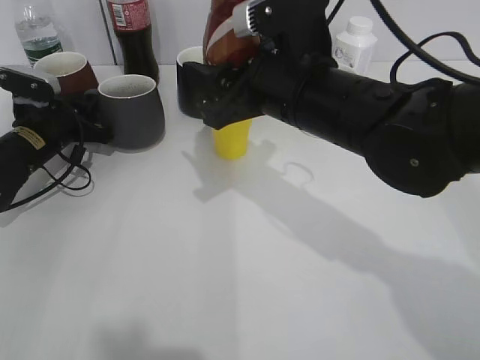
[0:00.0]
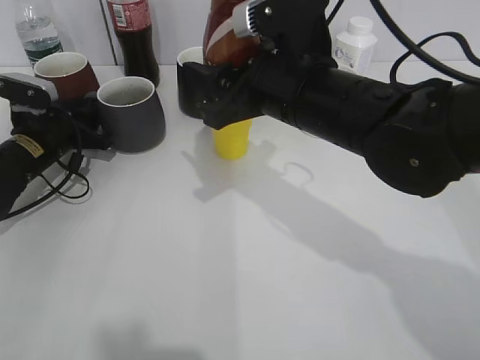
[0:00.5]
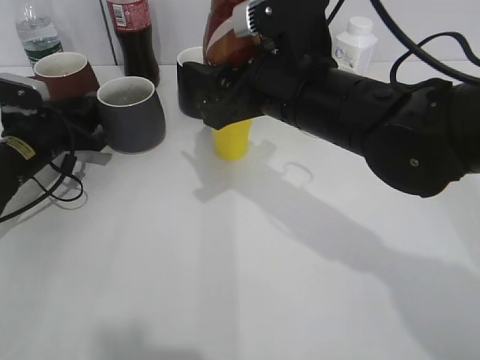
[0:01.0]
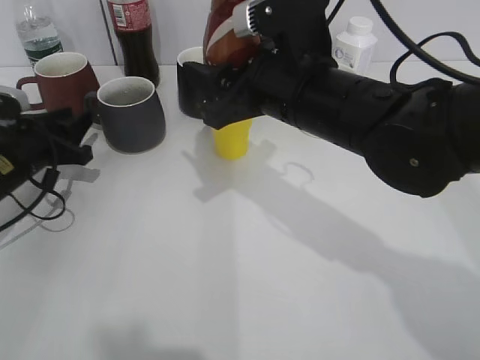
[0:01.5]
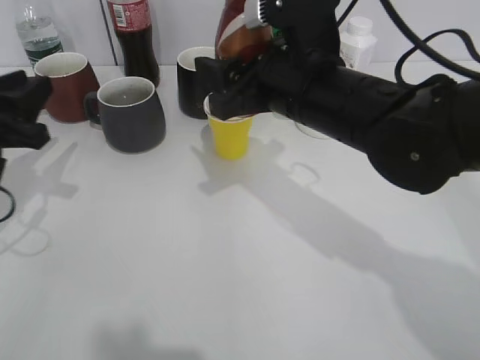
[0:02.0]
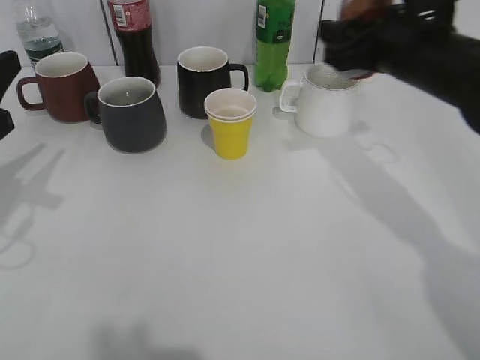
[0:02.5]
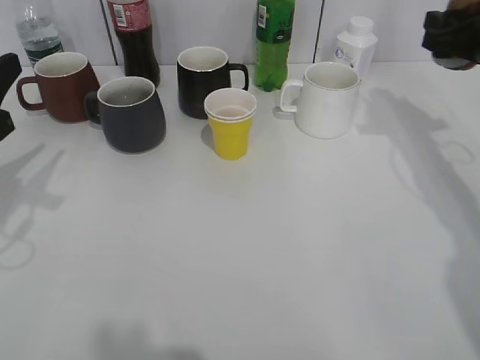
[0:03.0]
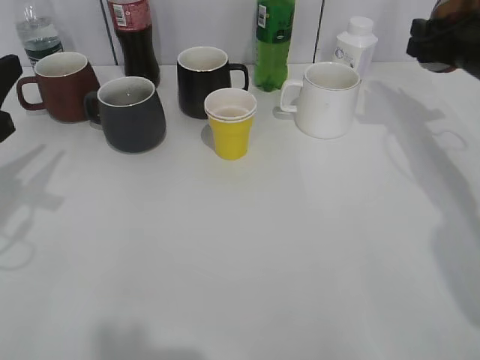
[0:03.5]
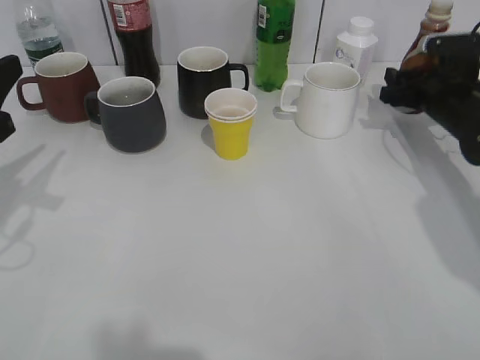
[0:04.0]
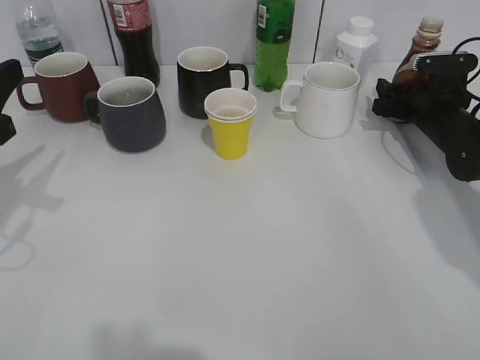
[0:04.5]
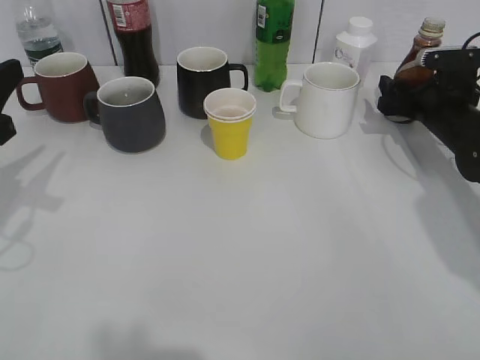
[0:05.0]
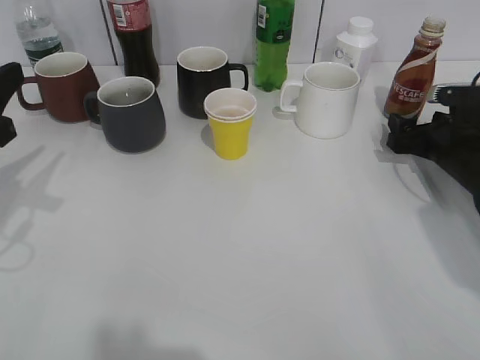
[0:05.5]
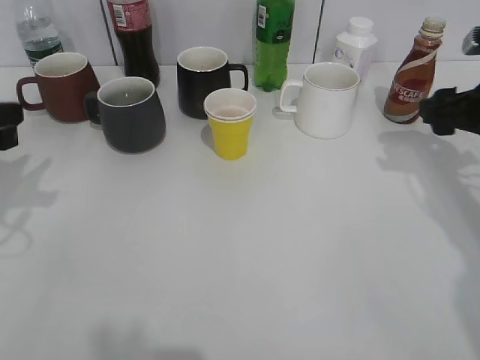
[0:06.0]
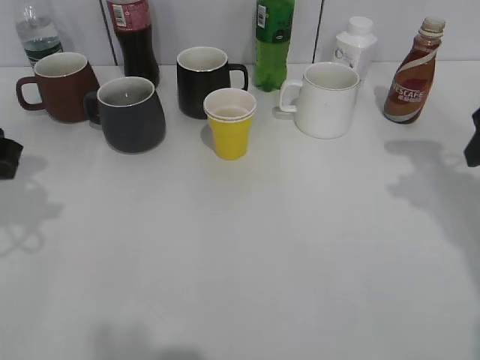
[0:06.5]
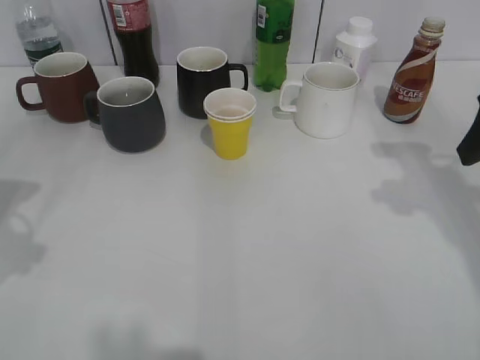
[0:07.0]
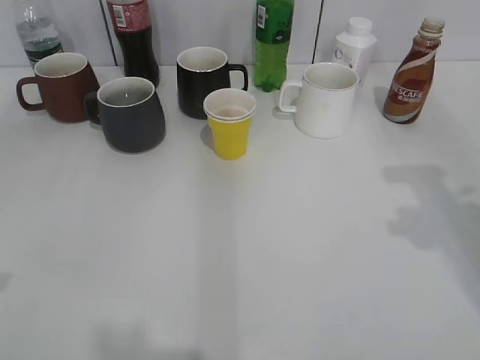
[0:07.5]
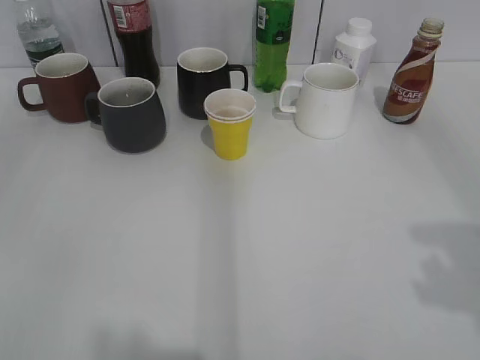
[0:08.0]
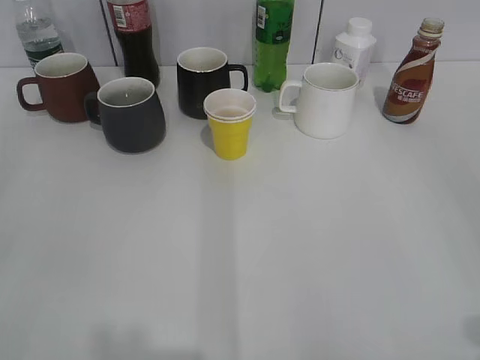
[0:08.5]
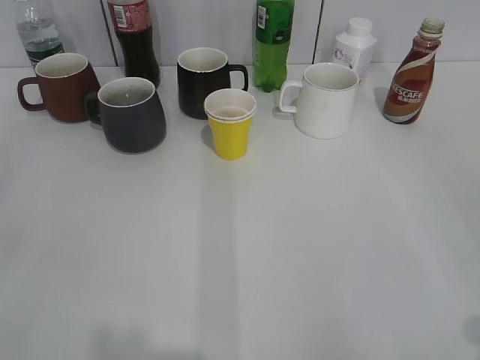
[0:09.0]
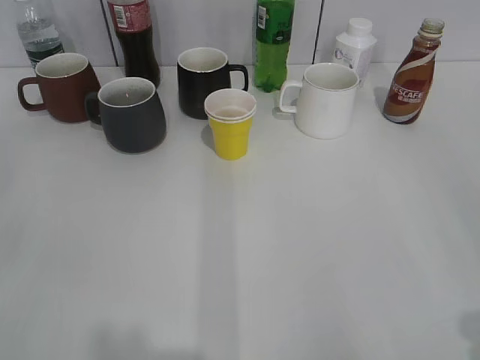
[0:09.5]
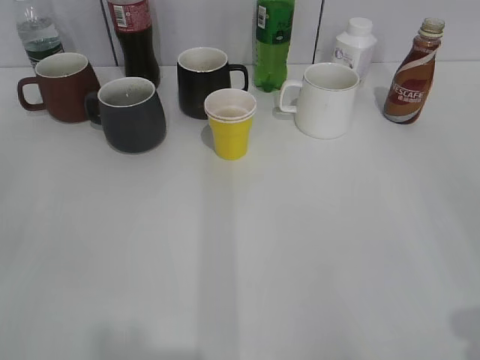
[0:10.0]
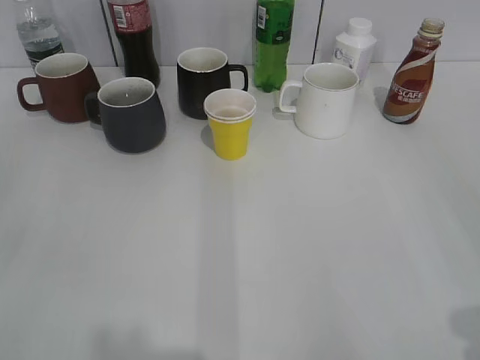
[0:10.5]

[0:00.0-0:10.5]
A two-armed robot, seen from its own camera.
Step, 0:02.0 to 0:05.5: Place the coffee bottle on the table with right gripper.
0:00.0 to 0:02.0: The left gripper is displaced backward and upward by about 15 cm, and opens up.
0:02.0 to 0:04.0: The left gripper moves roughly 5 cm. Meanwhile the right gripper travels to the right, forward and downward by some 30 cm.
0:04.0 to 0:06.5: The right gripper is displaced backward and upward by roughly 20 cm, and opens, then closes again.
0:06.5 to 0:08.5: Both grippers travel together backward, approximately 25 cm. The right gripper opens its fingers.

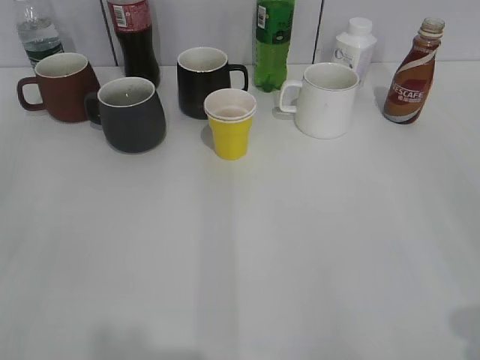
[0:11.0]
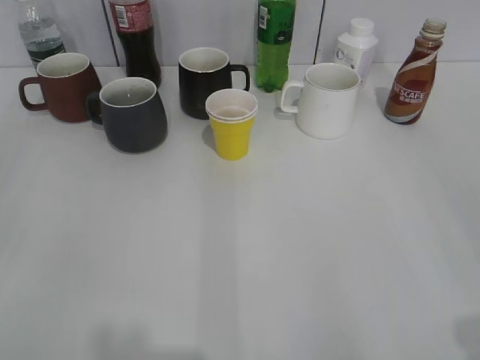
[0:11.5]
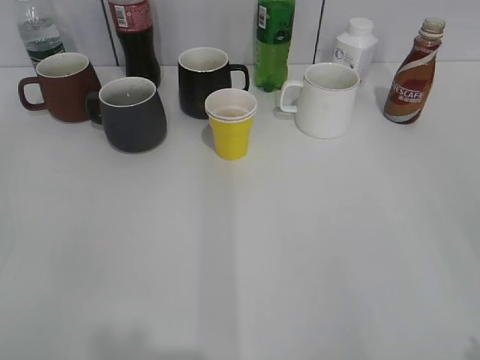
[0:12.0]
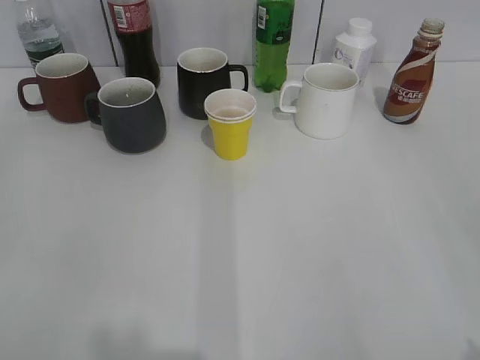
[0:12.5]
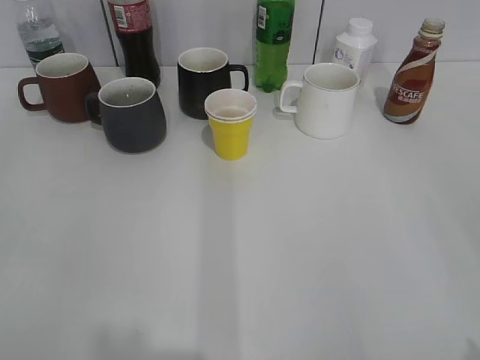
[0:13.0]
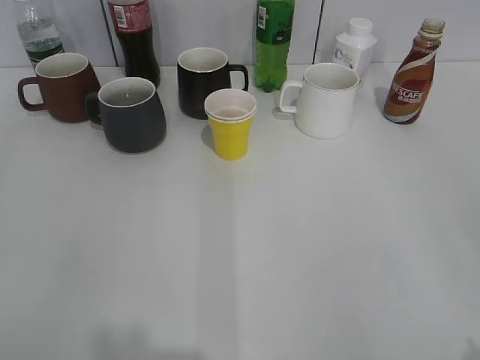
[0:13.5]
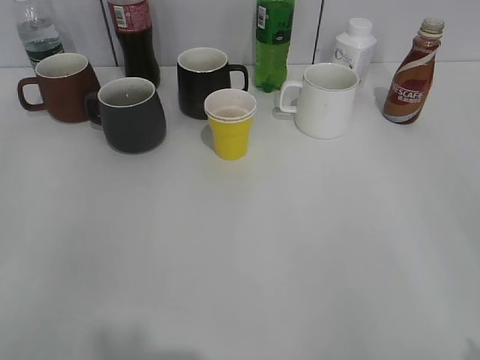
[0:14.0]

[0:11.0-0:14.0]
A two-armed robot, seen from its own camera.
0:12.5 to 0:14.0: Both grippers stay about where they are.

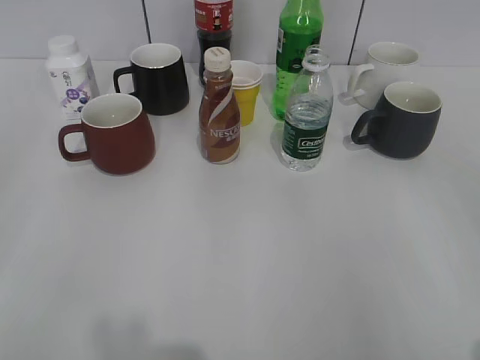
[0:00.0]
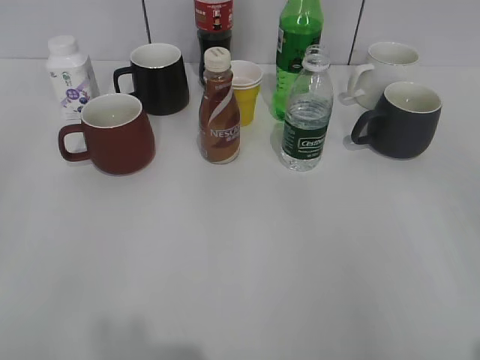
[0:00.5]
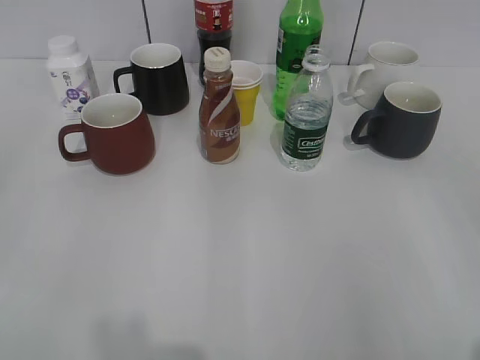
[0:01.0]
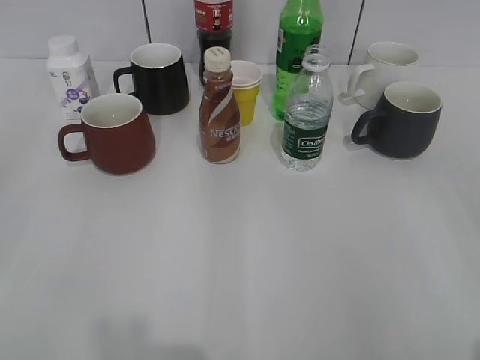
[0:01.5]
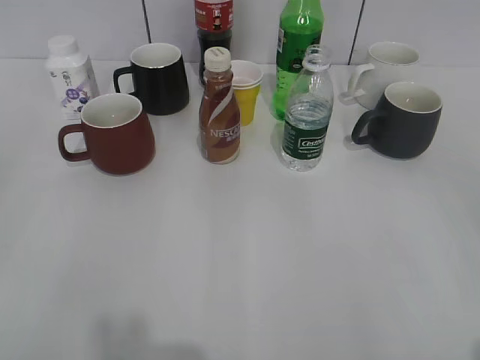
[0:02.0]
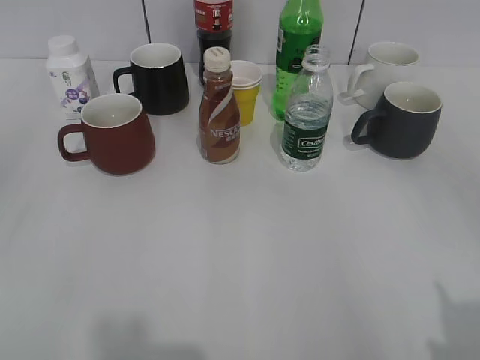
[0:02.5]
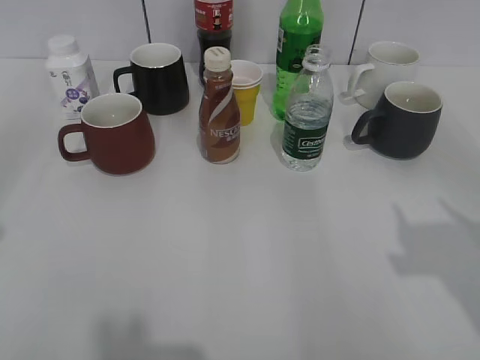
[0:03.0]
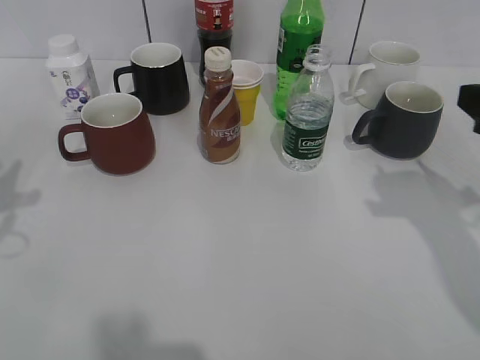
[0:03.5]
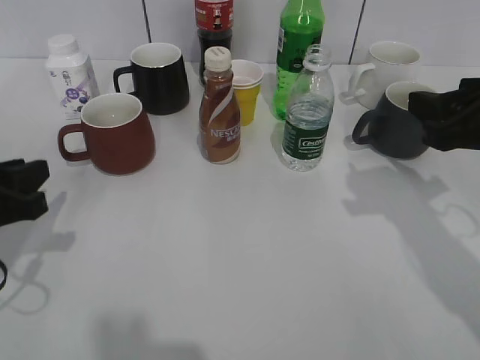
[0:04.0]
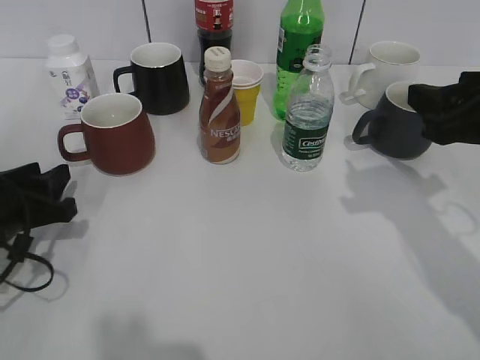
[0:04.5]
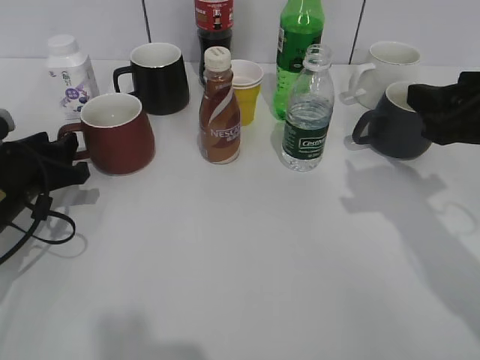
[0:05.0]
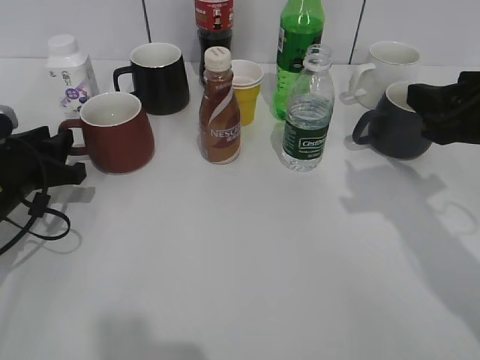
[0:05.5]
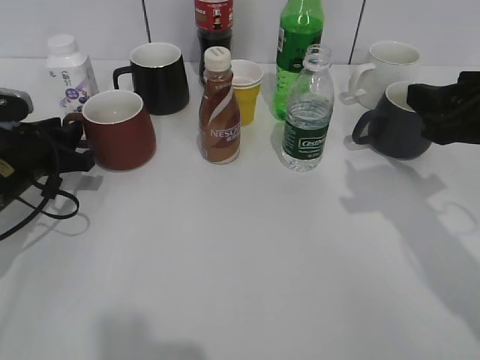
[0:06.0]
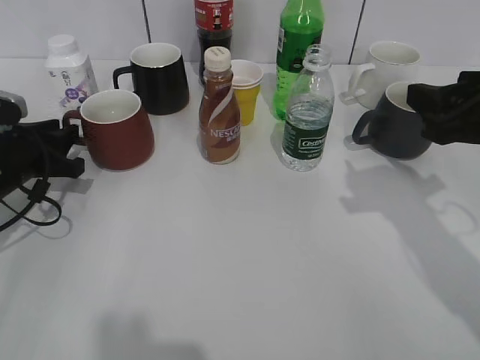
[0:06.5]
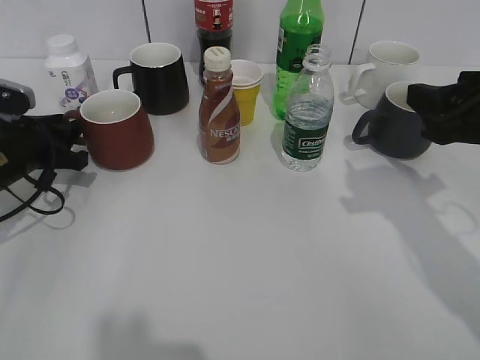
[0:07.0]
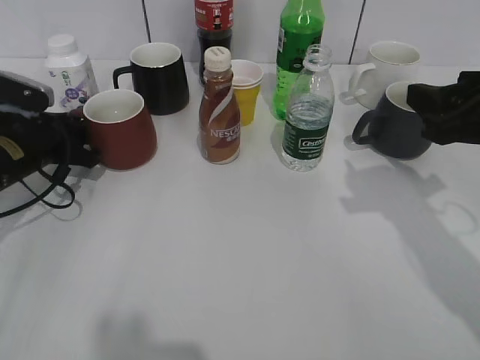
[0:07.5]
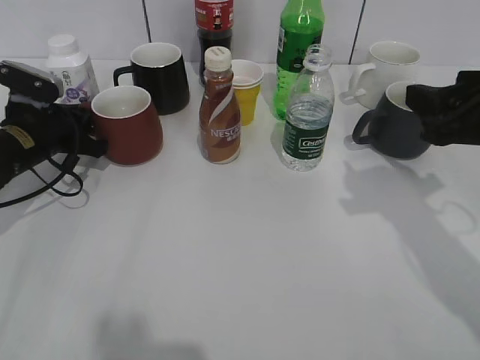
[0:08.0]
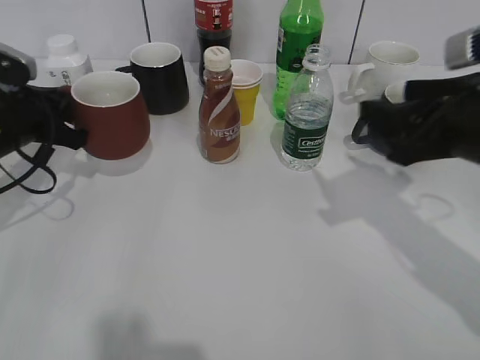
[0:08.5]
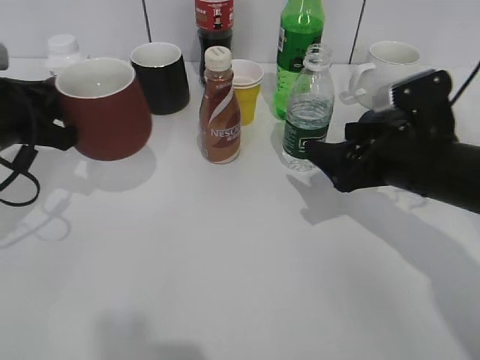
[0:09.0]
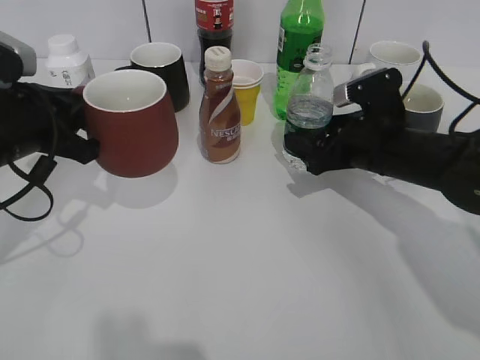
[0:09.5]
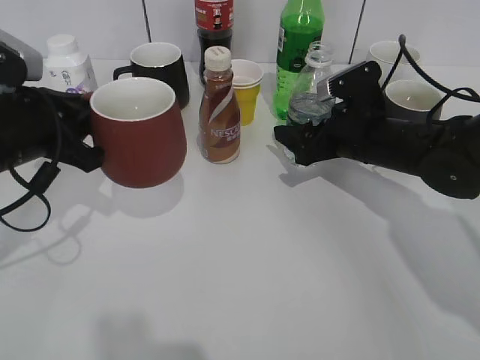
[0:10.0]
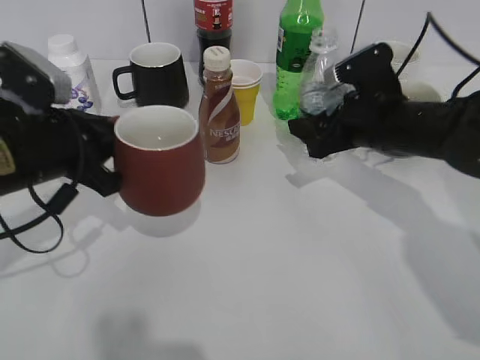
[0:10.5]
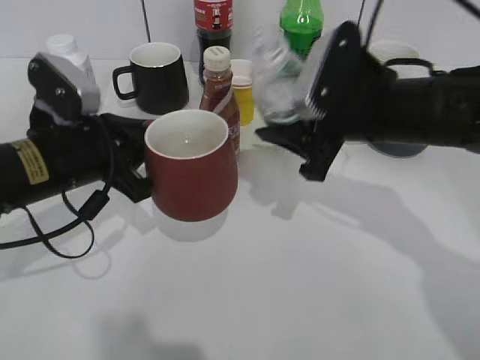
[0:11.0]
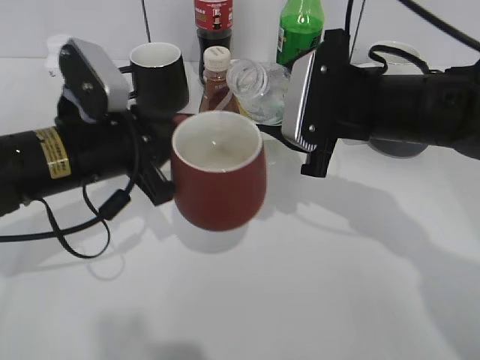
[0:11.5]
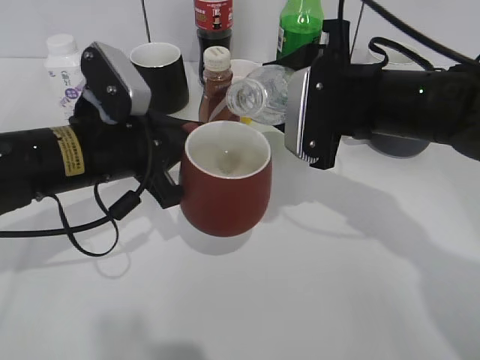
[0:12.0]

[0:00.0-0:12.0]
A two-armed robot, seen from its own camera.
Step, 0:02.5 to 0:07.5: Grasp the red cup with left gripper.
Step, 0:08.0 to 0:09.0: Lift the red cup with left gripper.
0:02.0 to 0:04.0: The right gripper moves forward, about 25 cm; the left gripper heads forward and downward, covering about 25 cm.
0:04.0 to 0:06.0: The left gripper travels forward by about 10 cm.
0:06.0 to 0:08.0: The left gripper is displaced forward by roughly 5 cm, and closes up.
0:08.0 to 0:10.0: The right gripper heads forward, downward and to the left, covering approximately 20 cm, and opens up; the left gripper moves backward and upward, roughly 15 cm.
0:10.0 to 0:12.0: The left gripper travels to the right by approximately 10 cm. The right gripper shifts some 10 cm upward and backward, and closes up.
